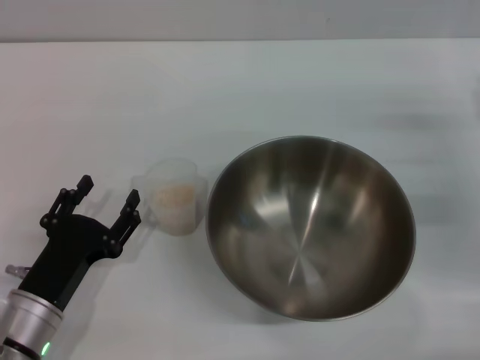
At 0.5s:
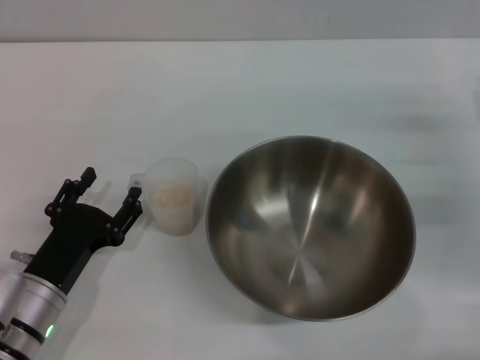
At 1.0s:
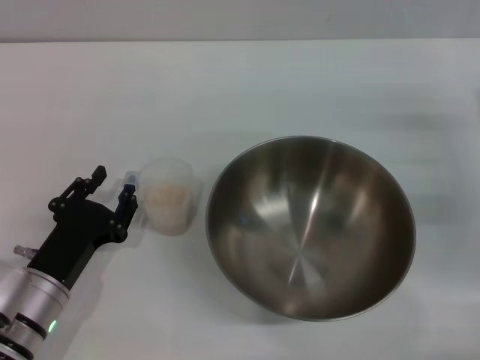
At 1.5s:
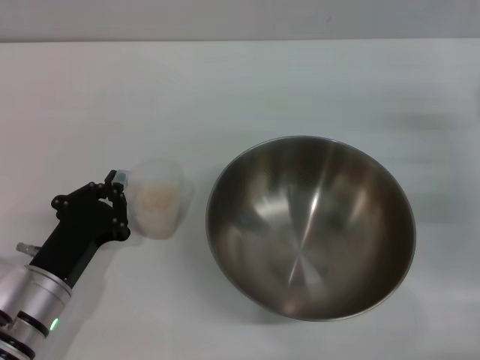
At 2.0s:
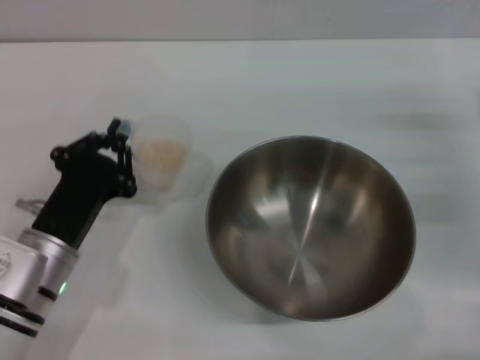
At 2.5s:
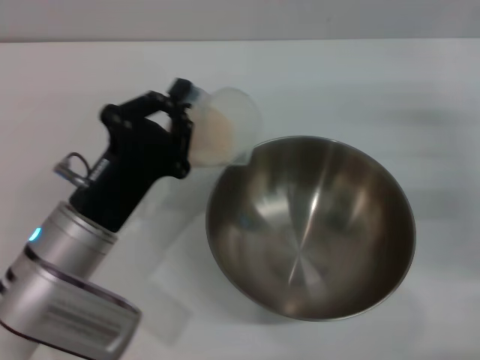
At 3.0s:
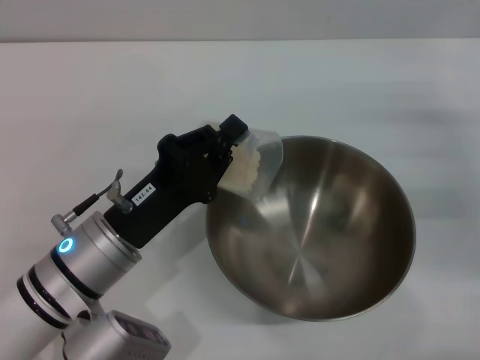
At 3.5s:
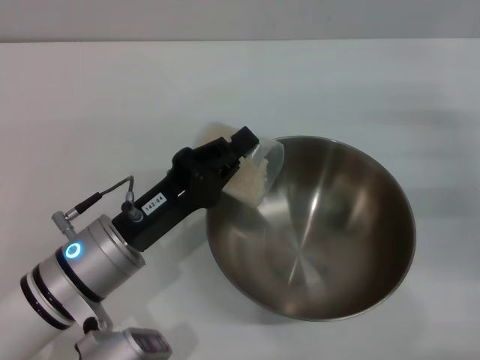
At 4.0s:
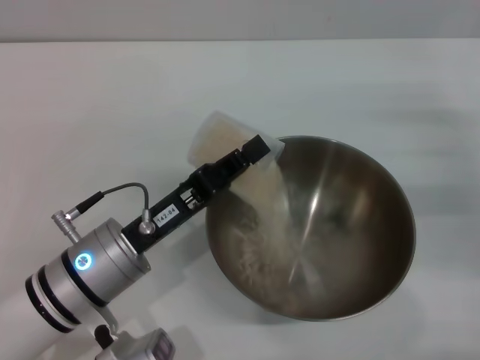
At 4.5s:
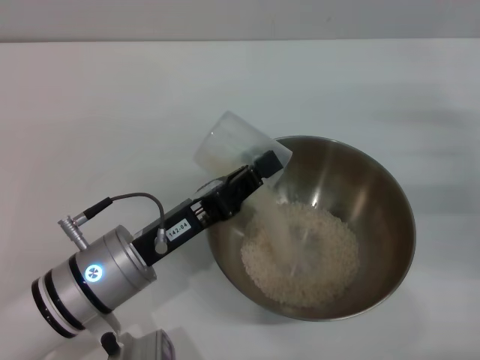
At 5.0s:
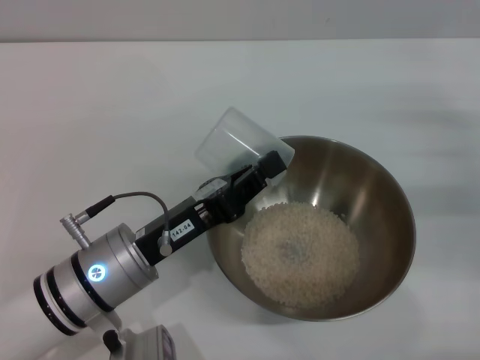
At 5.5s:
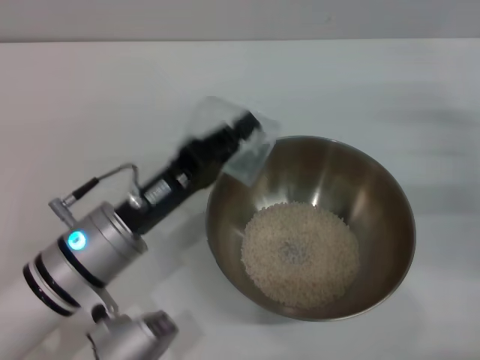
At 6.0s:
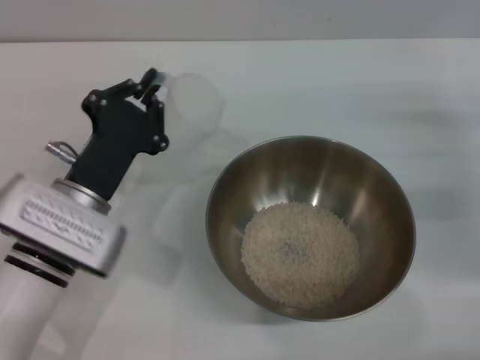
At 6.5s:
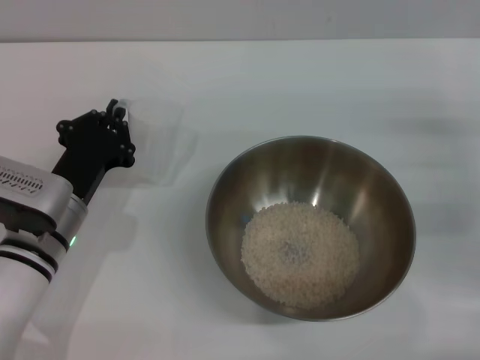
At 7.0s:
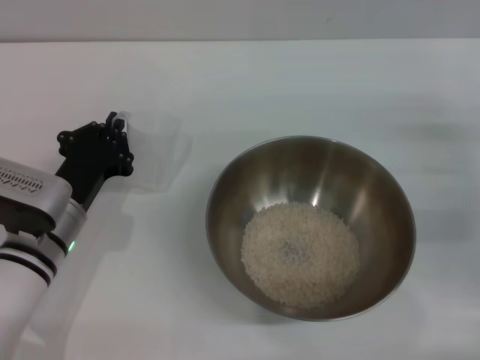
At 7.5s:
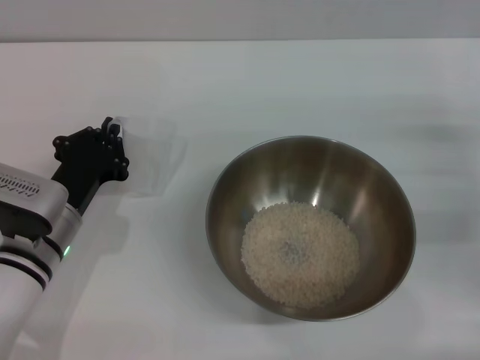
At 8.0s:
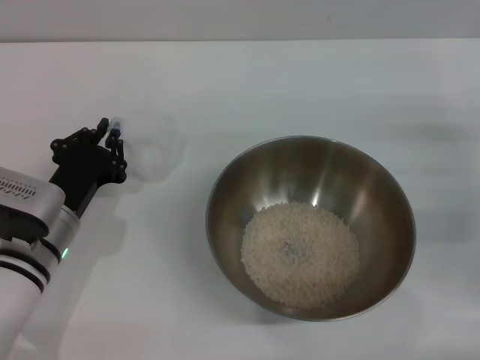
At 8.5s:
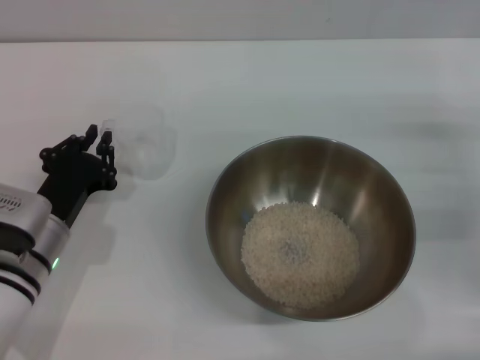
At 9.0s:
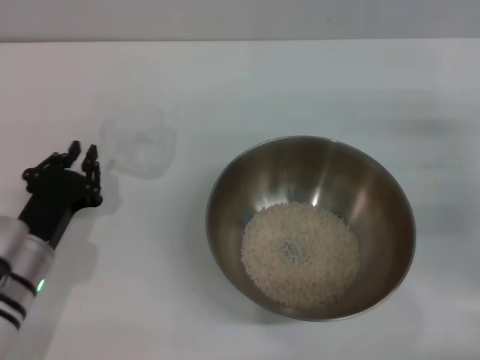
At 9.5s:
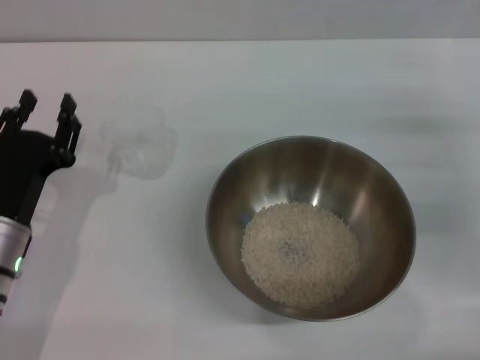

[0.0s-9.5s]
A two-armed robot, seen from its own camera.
Task of the whole recording: Place the bowl in the middle of the table with one hand and pour the rice from the grain cup into it with the other hand.
Step, 0.0s to 2.0s: Pick up the cup with rice in it with the left gripper.
Step, 2.5s to 5.0s: Pour the rice from the cup into the bowl with the left gripper.
Step, 5.5s to 9.0s: Place the cup on the table with the left gripper.
0.0s to 2.0s: The left gripper ends up roughly 5 cm from where it was, and closes.
2.0s to 4.0s: The left gripper moves to the right, roughly 5 cm.
4.0s to 5.5s: The grippers stay close to where they were, moving slightly.
5.5s to 7.5s: The left gripper moves to the left, roughly 5 cm.
7.5s to 9.5s: The left gripper shifts by roughly 5 cm, and opens its fingers.

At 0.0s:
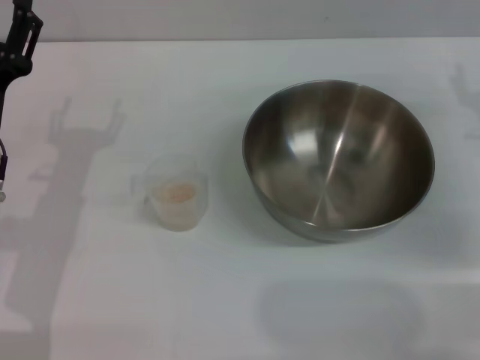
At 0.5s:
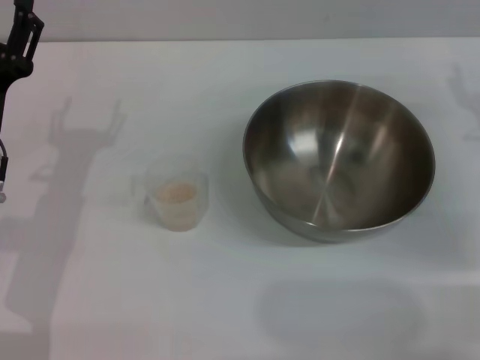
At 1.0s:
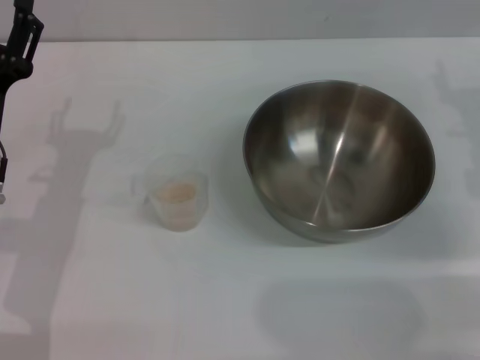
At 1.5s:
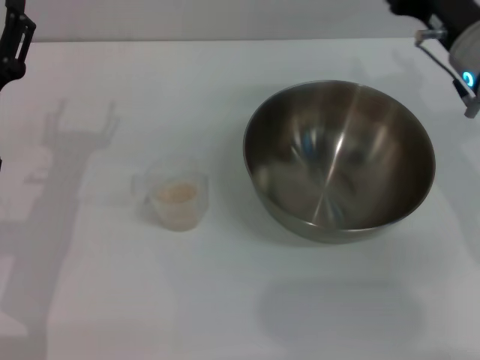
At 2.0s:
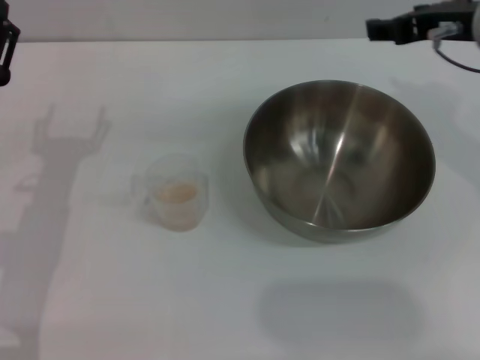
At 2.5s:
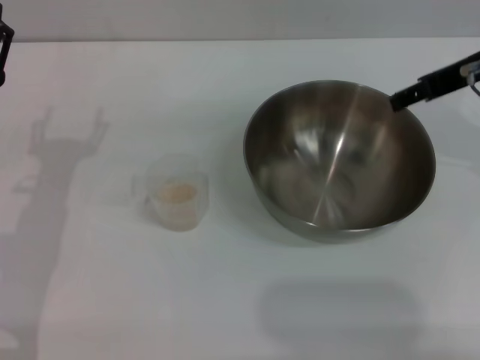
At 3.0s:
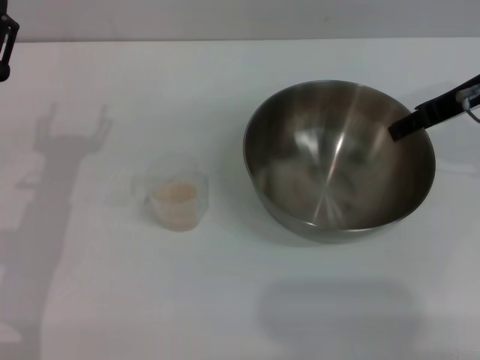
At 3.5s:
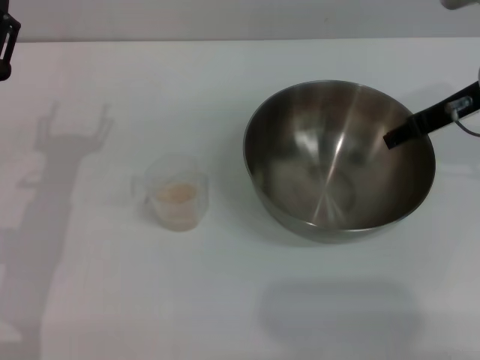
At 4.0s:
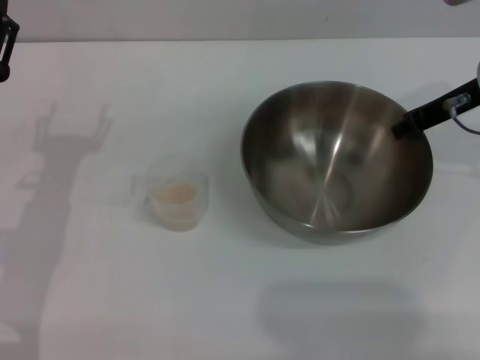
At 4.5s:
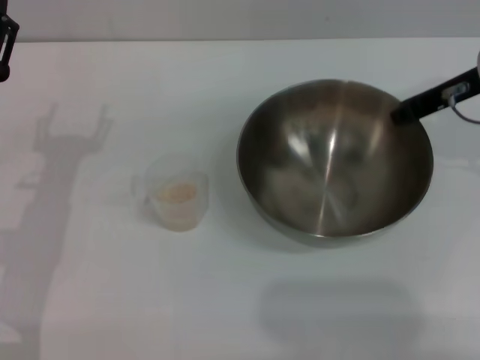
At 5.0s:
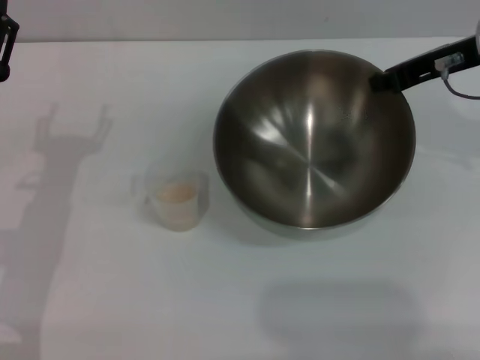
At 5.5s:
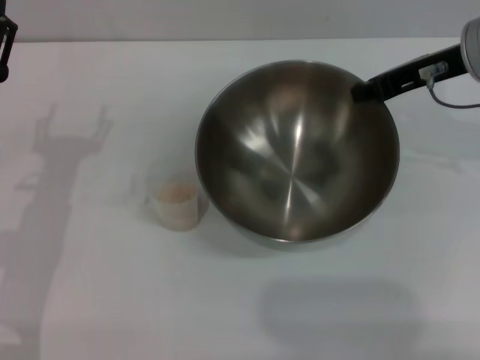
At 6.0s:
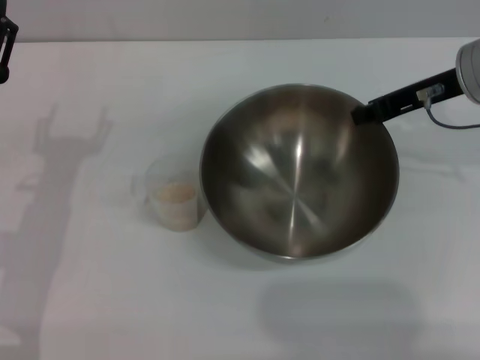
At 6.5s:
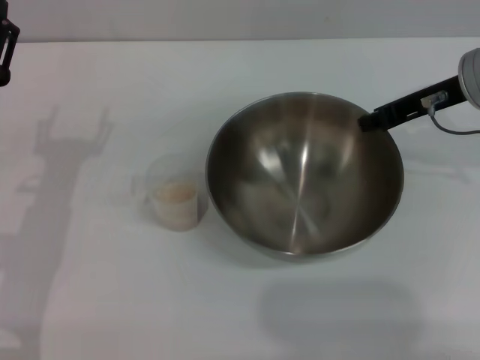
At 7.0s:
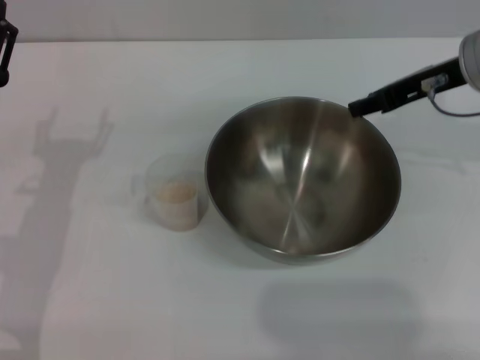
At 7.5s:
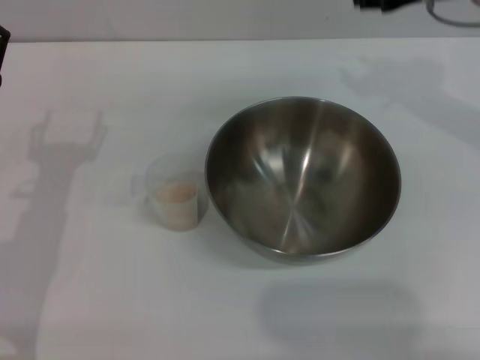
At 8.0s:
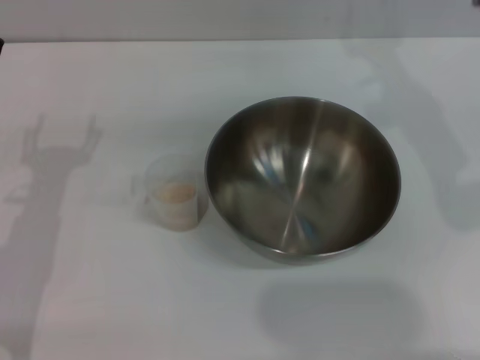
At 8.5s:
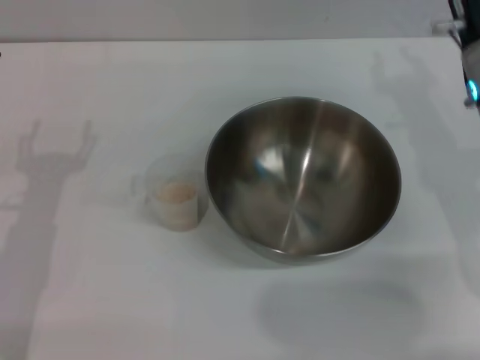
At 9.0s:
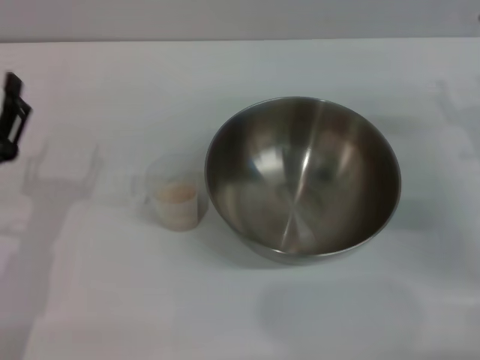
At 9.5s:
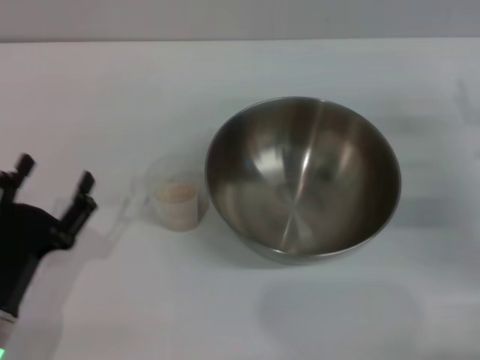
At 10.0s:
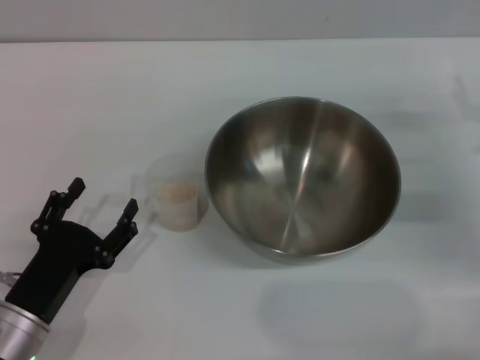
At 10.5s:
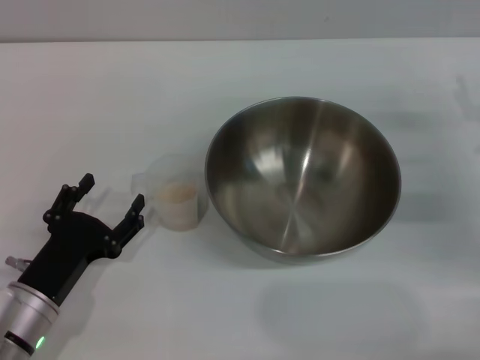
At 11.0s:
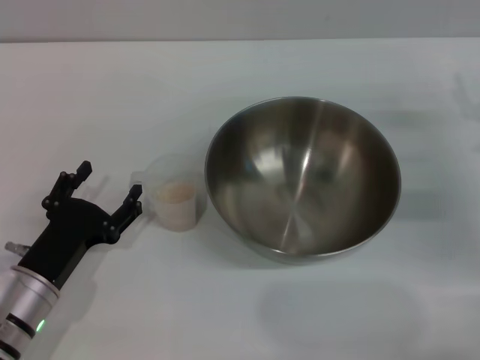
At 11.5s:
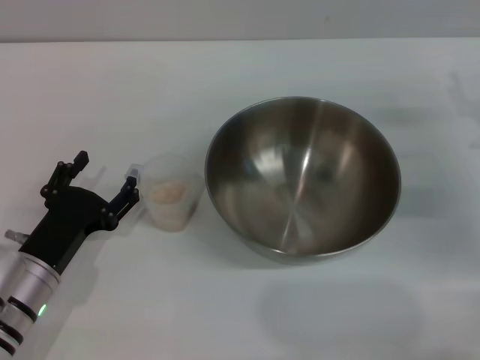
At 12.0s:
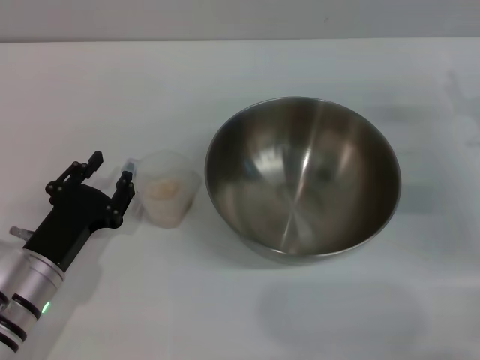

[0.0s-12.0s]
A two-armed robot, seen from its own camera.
Task of the whole recording: Place the bowl in the middle of the table with one hand and pour the rice from the grain cup into it with the other hand.
Step, 0.0s to 4.5s: Pick up the bowl with the right gripper.
Step, 5.5s to 7.0s: Place the bowl in the center of view with the right gripper.
0.0s to 2.0s: The right gripper moves upward and to the left, about 15 cm.
2.0s to 4.0s: The right gripper shifts by approximately 5 cm, and closes up.
4.0s to 6.0s: The right gripper closes up.
6.0s to 8.0s: The right gripper moves approximately 5 cm, and opens up.
8.0s to 10.0s: The left gripper travels backward and downward by some 10 cm; the right gripper travels downward, to the right and backward by approximately 20 cm.
10.0s to 12.0s: The left gripper shifts approximately 5 cm forward.

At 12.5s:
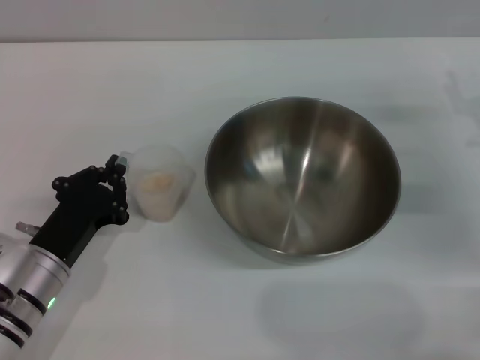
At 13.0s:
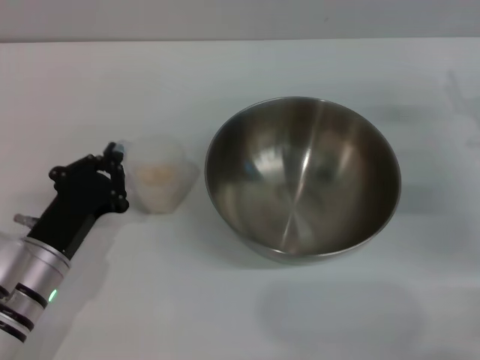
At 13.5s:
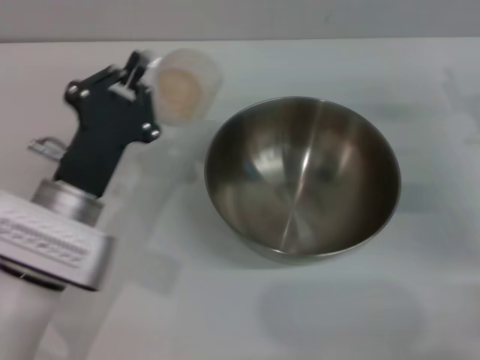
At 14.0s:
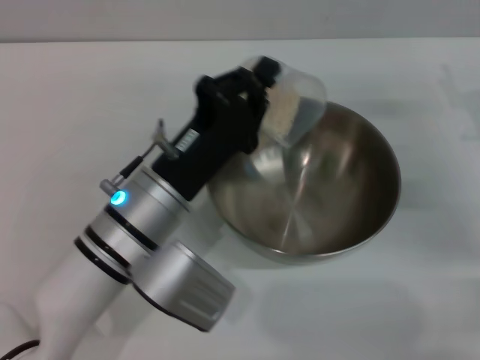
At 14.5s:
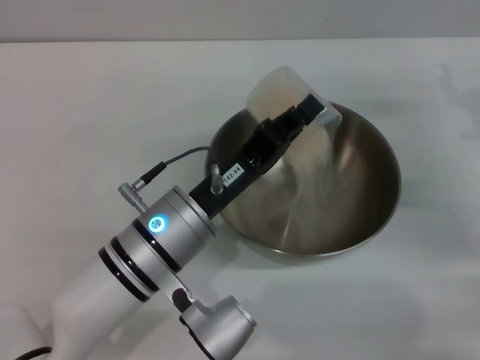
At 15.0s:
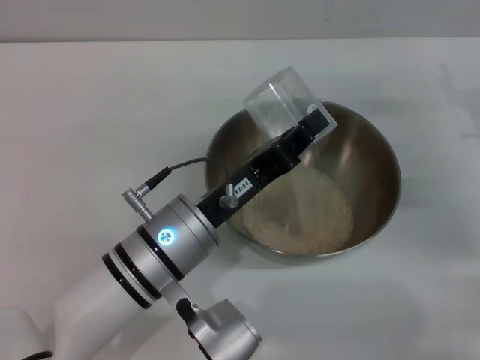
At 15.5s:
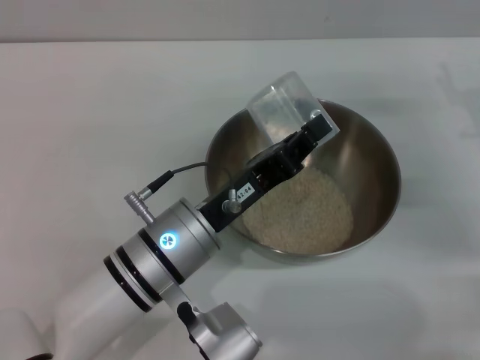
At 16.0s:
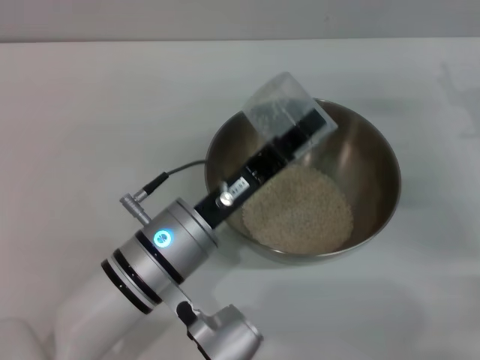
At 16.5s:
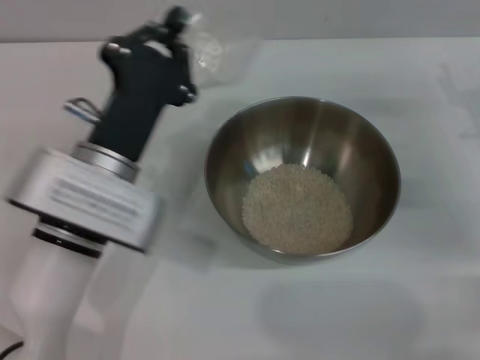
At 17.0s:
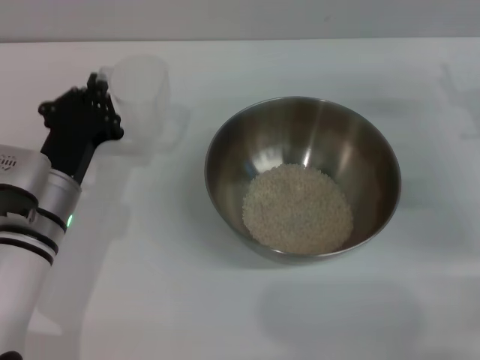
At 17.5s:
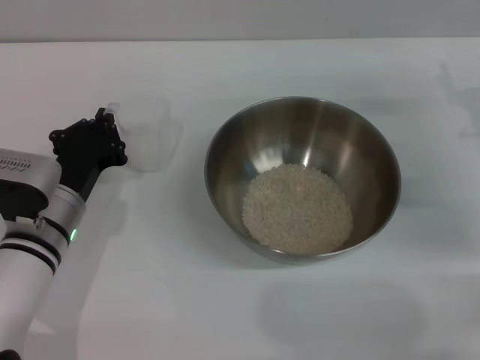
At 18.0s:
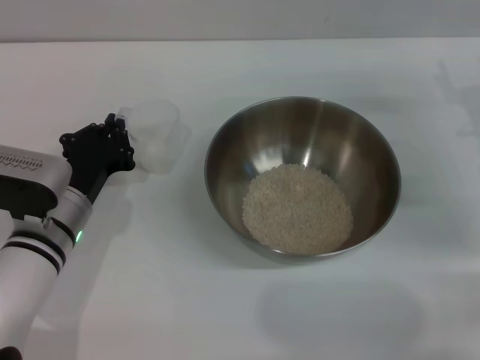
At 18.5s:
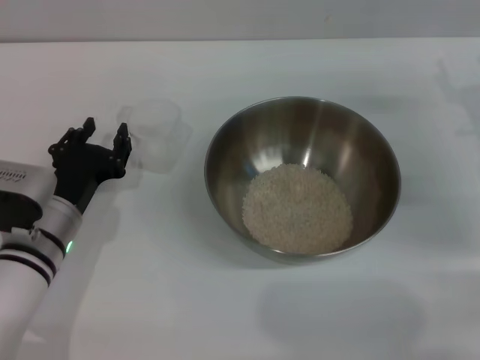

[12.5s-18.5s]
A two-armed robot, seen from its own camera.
Task of the whole recording: Place the bowl in the middle of the table with one hand and pour the rice from the grain cup into it with the other hand.
Step, 13.5s to 15.0s: Pour the rice from the cup into the bowl with the left gripper.
Step, 15.5s to 18.5s: Place the cup on the table with the left gripper.
12.5s to 14.5s: The left gripper travels to the right and upward by approximately 15 cm.
14.5s to 16.5s: The left gripper moves to the left, approximately 5 cm.
16.5s to 18.5s: The left gripper goes roughly 10 cm downward and to the left, and opens.
